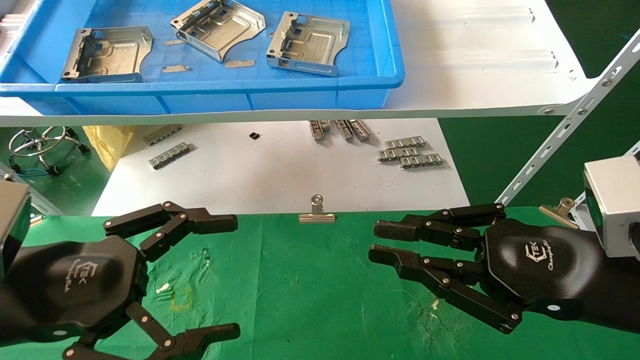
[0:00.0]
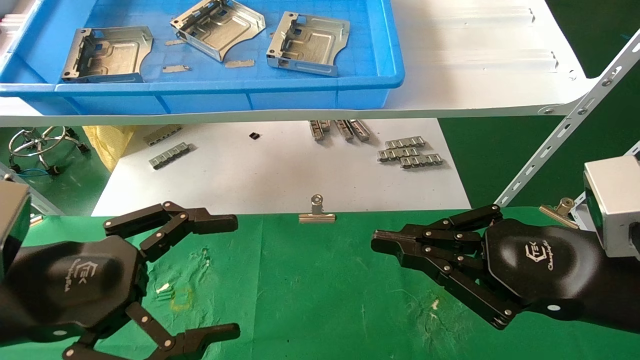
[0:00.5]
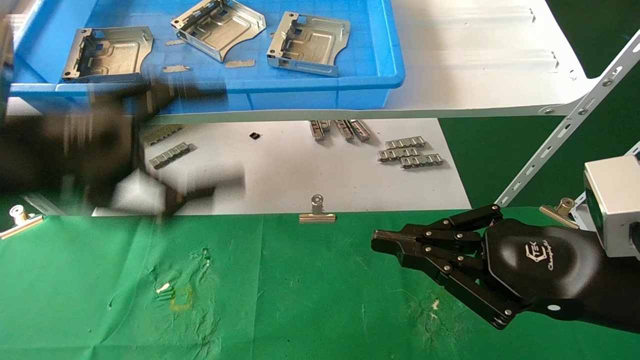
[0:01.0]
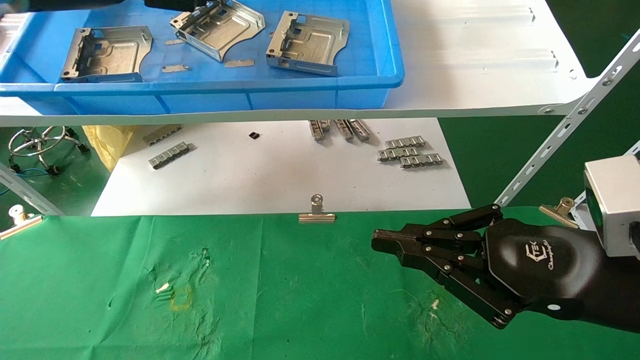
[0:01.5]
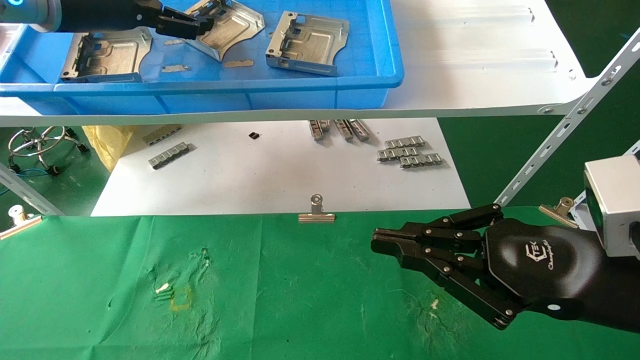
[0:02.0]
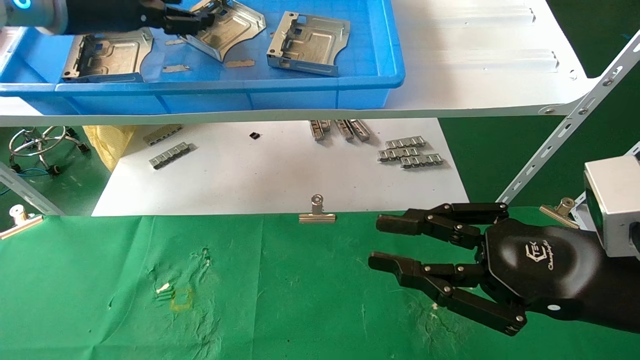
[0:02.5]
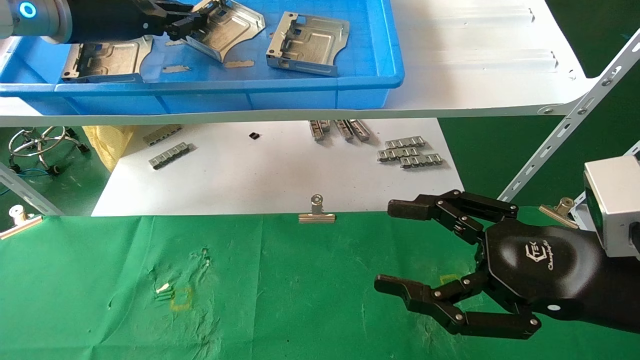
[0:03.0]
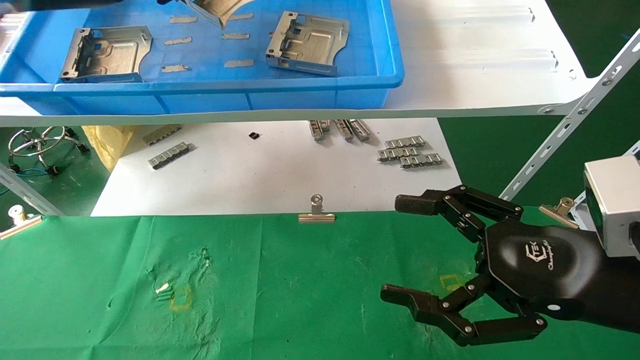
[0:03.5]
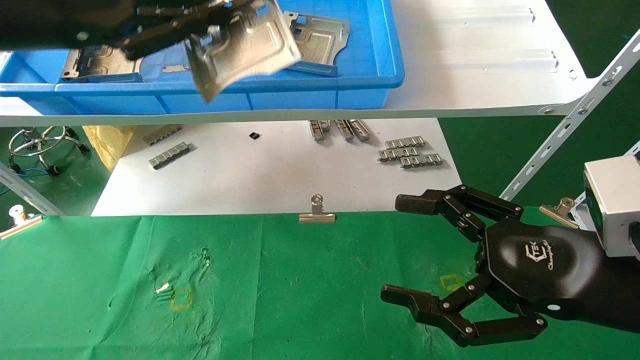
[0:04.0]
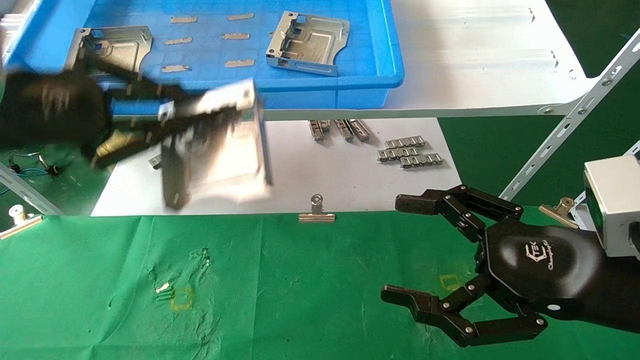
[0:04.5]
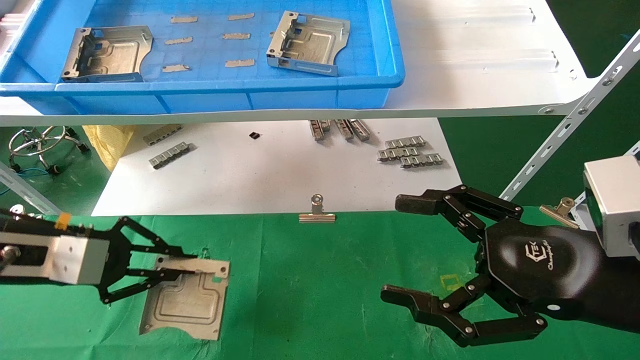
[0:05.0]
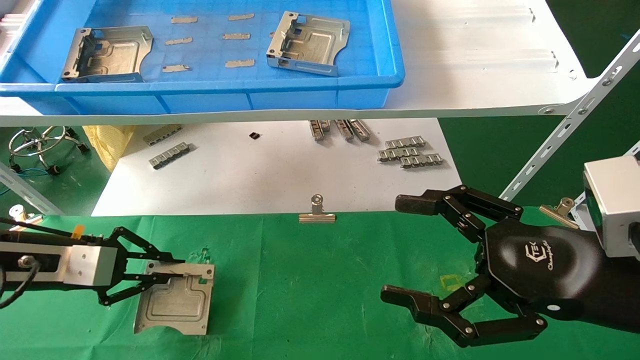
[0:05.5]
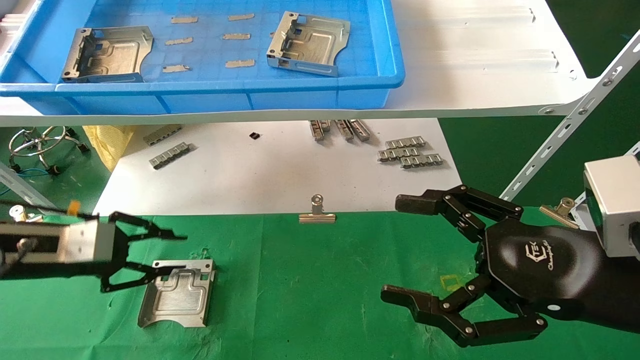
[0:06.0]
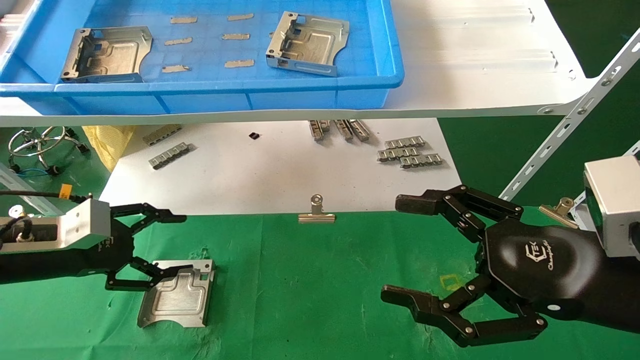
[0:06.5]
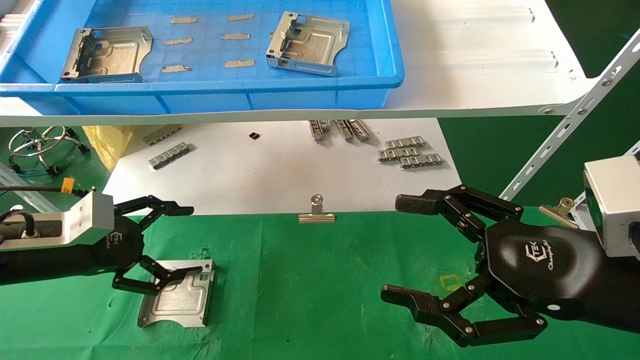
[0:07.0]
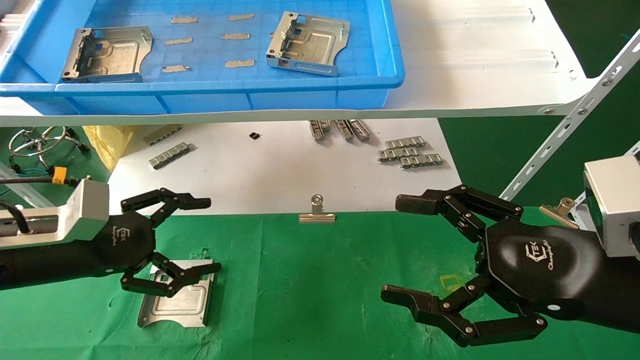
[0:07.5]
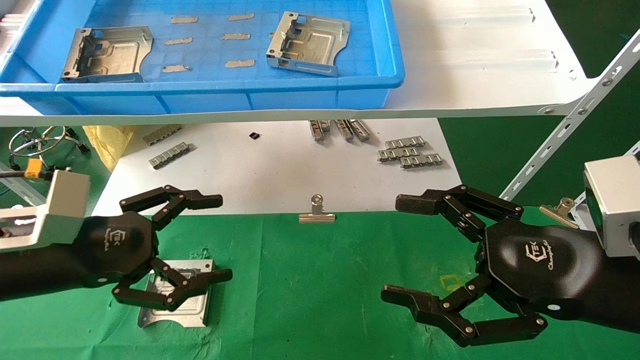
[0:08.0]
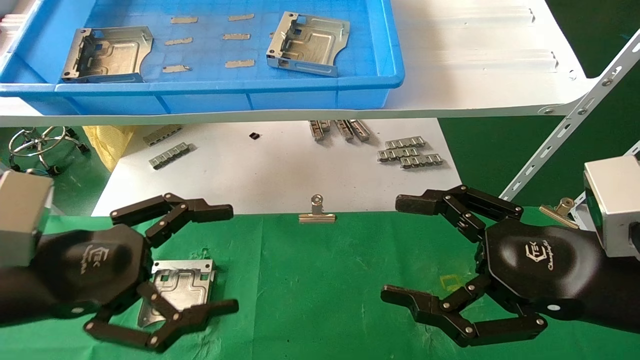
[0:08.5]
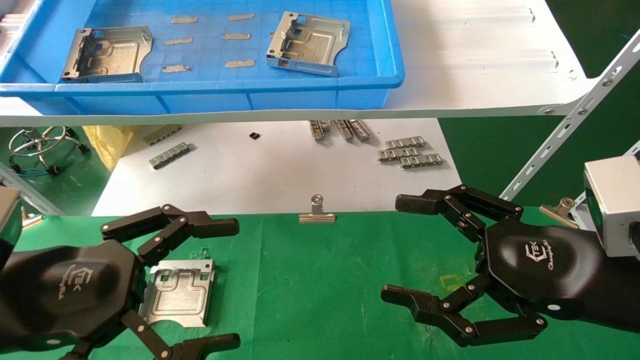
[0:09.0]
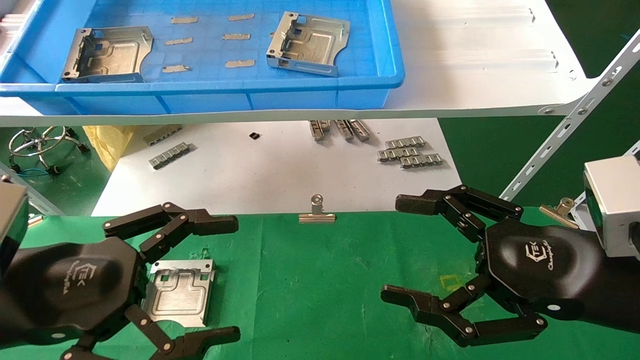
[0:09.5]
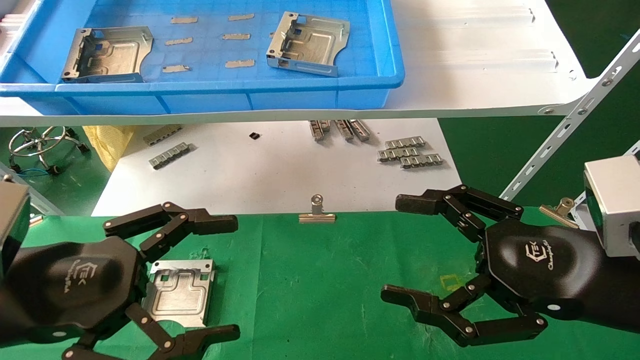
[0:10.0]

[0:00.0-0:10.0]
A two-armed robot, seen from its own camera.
Task of the whole recording: use the mechanical arm to pick up the parts and place them on the table.
Step, 0:01.0 to 0:03.0: Pick up the hard drive bracket from the feeding area.
Step, 0:03.5 to 0:06.0: Place the hard drive bracket into the box.
0:00.0 to 0:02.0: The left gripper moves upward and forward, approximately 30 cm.
0:02.0 to 0:04.0: The left gripper goes roughly 10 cm backward, and closes its fingers, while the right gripper opens.
0:04.0 to 0:06.0: The left gripper goes roughly 25 cm downward.
0:06.0 to 0:08.0: The left gripper moves to the right and backward, some 10 cm, and opens.
0:08.0 to 0:10.0: The left gripper heads backward, covering about 5 cm.

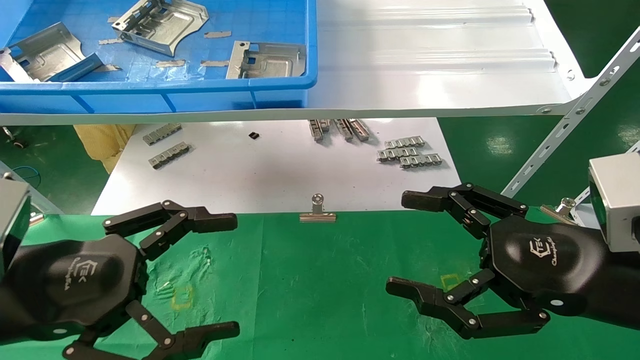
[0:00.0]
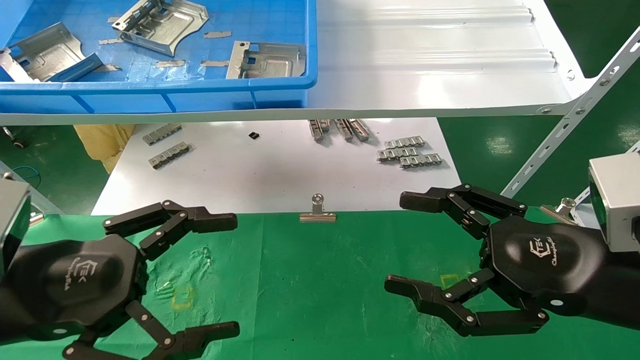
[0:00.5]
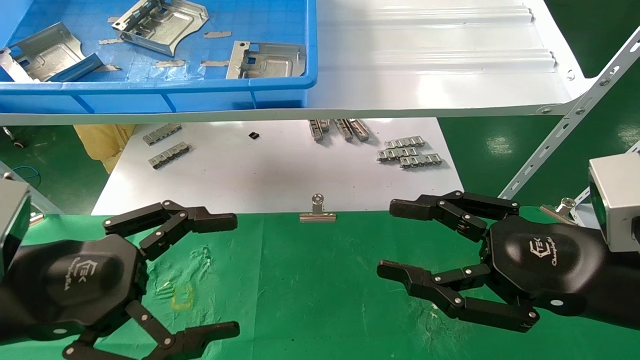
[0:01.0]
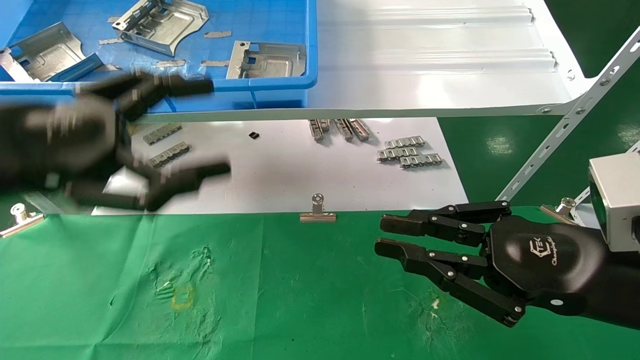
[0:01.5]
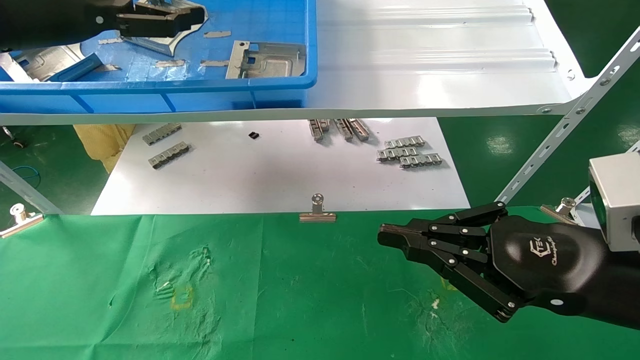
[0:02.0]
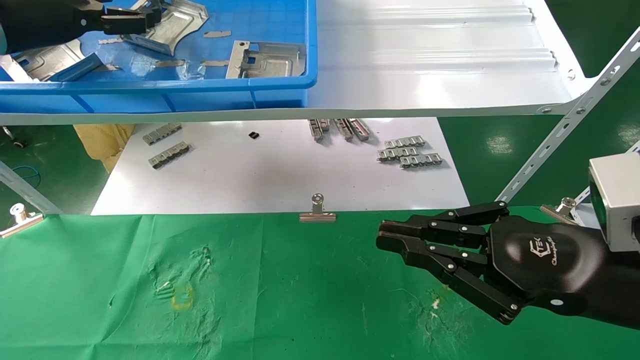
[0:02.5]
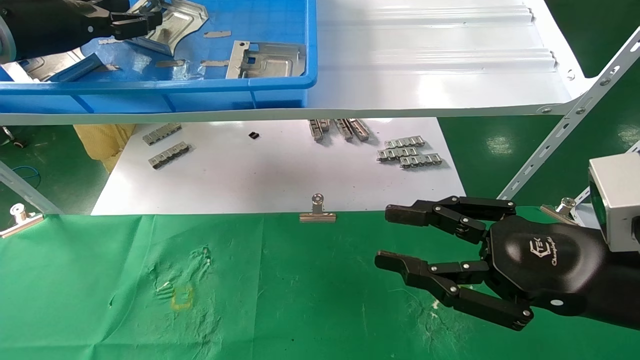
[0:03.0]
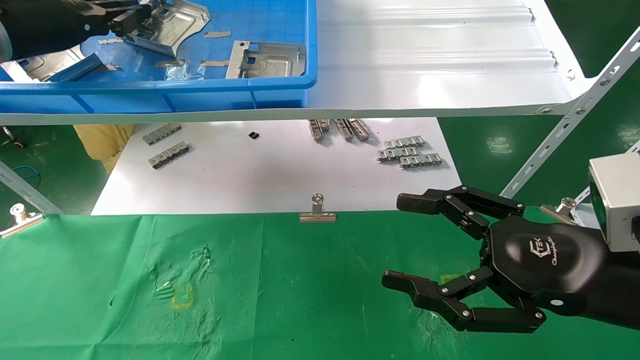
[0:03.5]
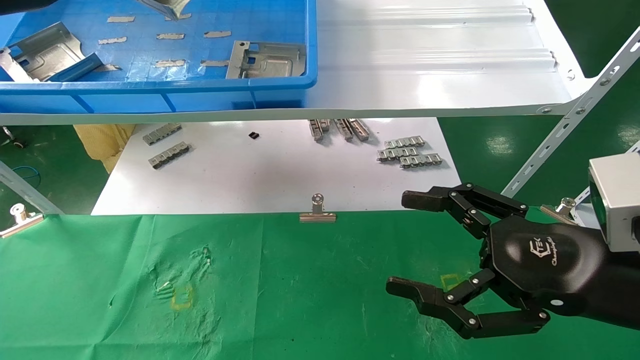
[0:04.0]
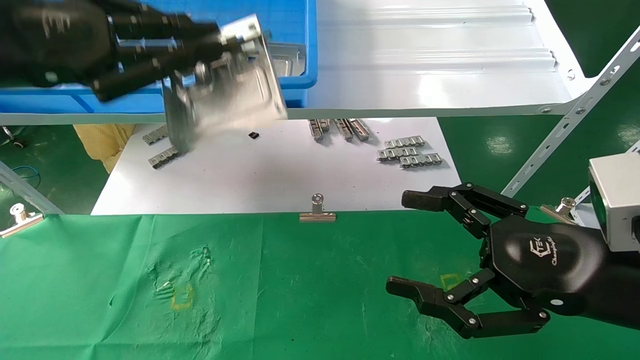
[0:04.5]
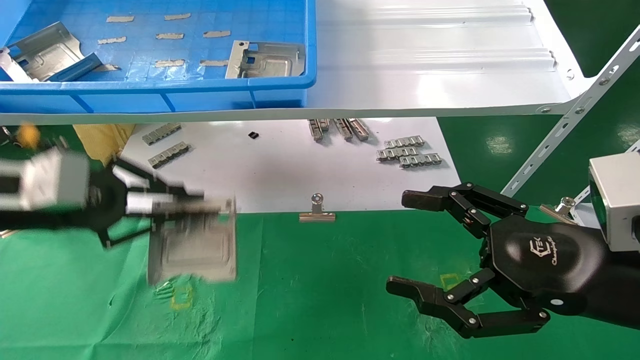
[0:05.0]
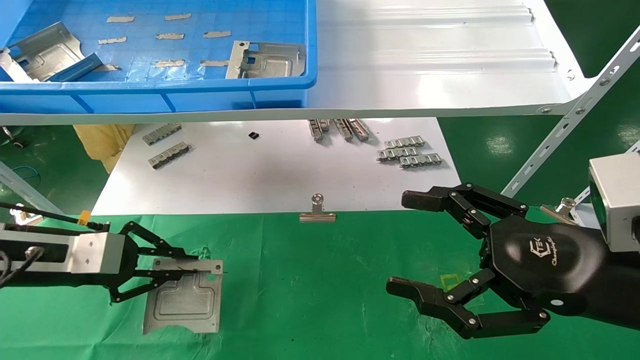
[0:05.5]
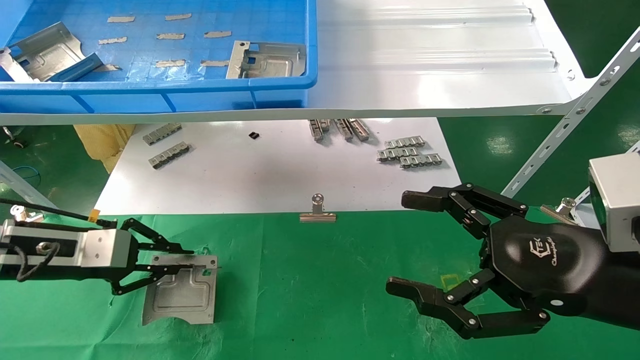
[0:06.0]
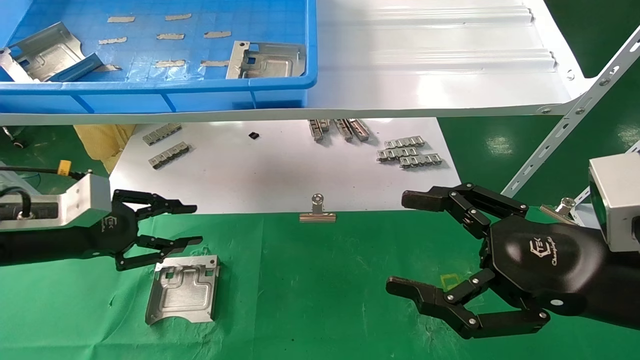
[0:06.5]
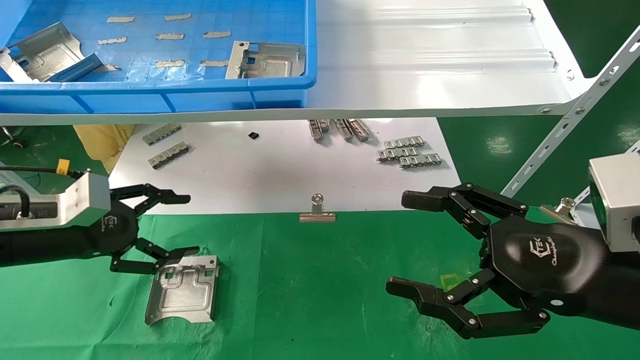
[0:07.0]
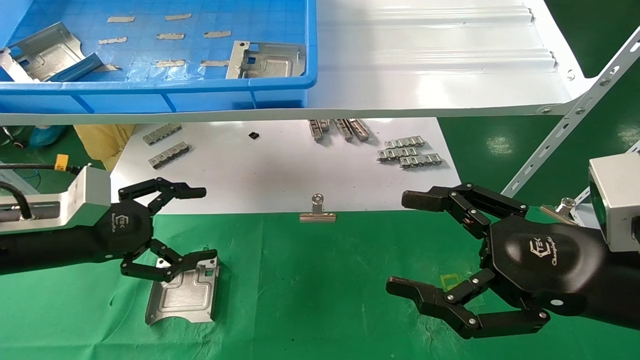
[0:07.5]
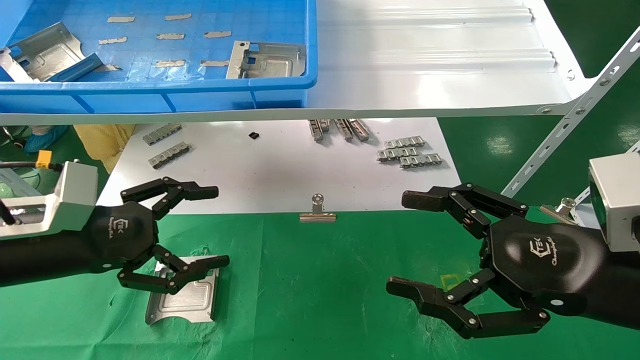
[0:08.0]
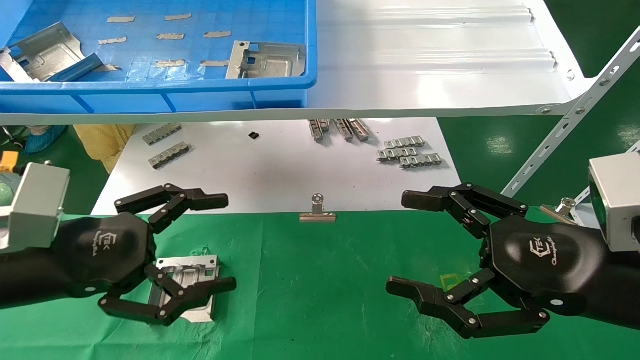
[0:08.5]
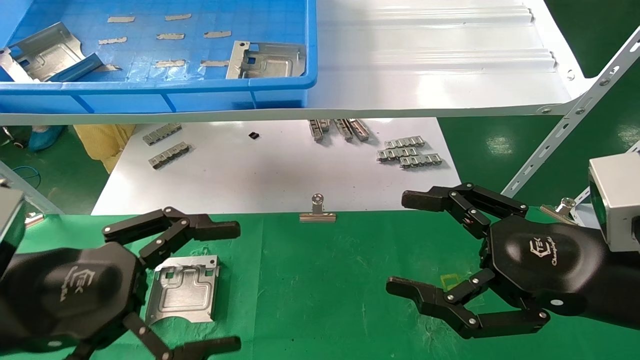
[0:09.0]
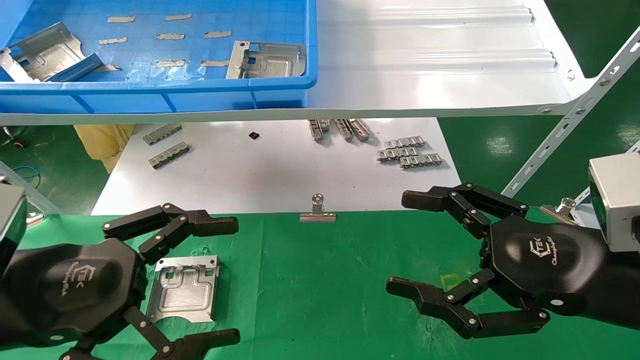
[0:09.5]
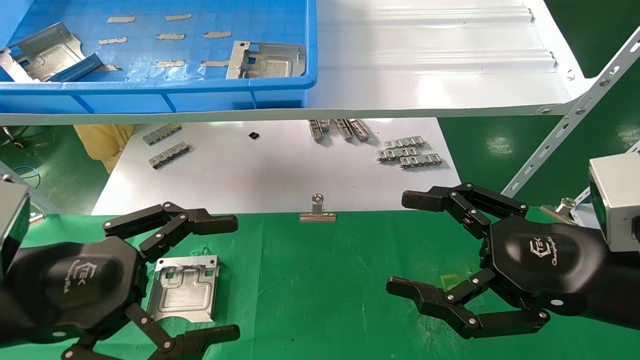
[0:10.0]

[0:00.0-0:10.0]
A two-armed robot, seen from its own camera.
Task of the whole recording: use the mechanical arm to pick up the parts and place them on the table.
Step, 0:01.5 to 0:03.5: Pick up the hard drive bracket from the feeding area.
Step, 0:04.0 to 0:06.0: Place the hard drive bracket into the box.
0:00.0 to 0:02.0: The right gripper closes up. Meanwhile the left gripper shifts approximately 25 cm upward and forward.
0:02.0 to 0:04.0: The left gripper closes its fingers. The right gripper opens up.
0:04.0 to 0:06.0: The left gripper moves downward, roughly 25 cm.
0:06.0 to 0:08.0: The left gripper travels backward and to the right by roughly 10 cm, and opens up.
0:08.0 to 0:10.0: The left gripper heads backward, covering approximately 10 cm.
